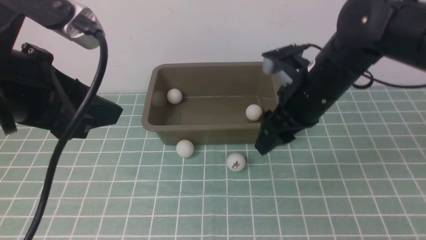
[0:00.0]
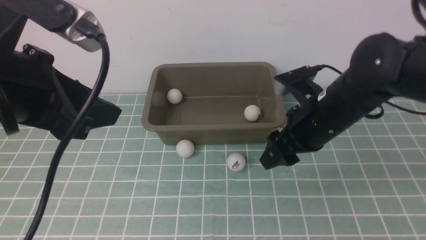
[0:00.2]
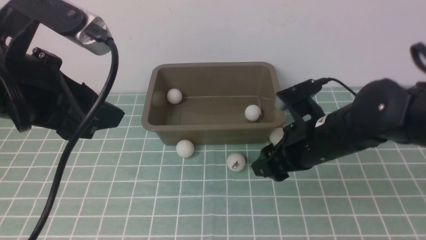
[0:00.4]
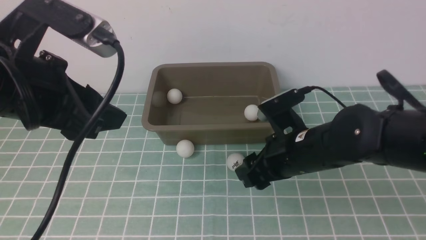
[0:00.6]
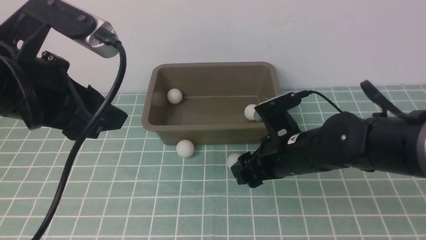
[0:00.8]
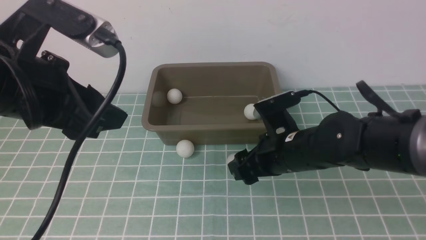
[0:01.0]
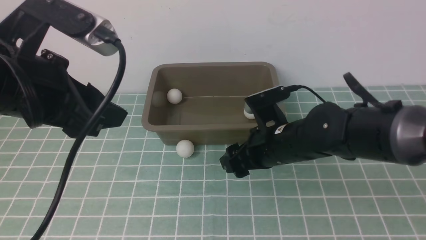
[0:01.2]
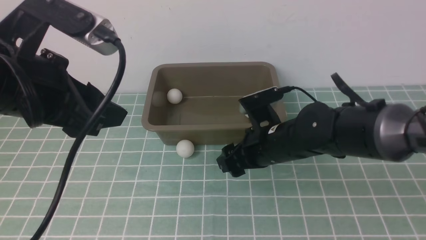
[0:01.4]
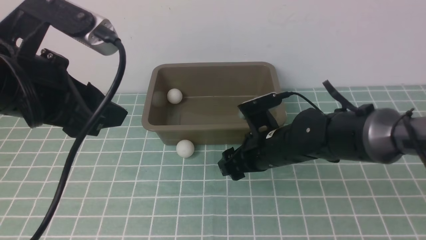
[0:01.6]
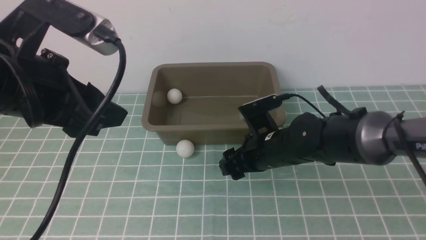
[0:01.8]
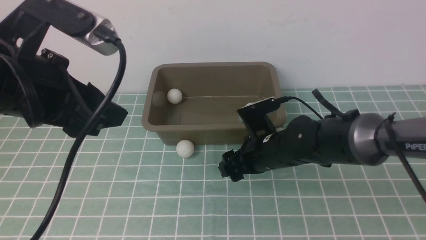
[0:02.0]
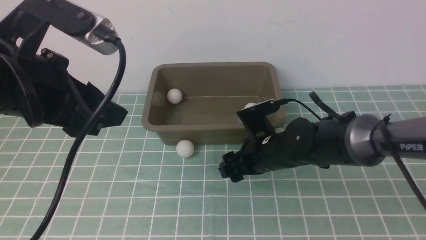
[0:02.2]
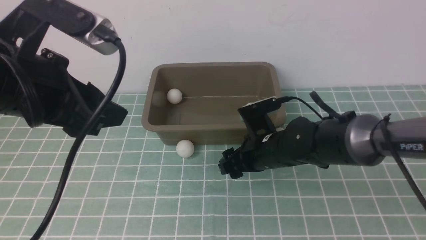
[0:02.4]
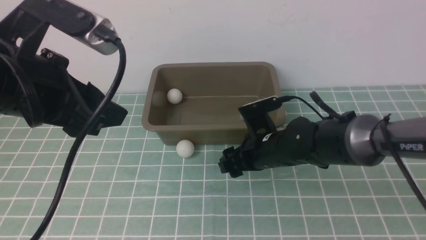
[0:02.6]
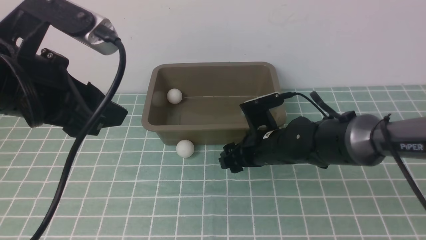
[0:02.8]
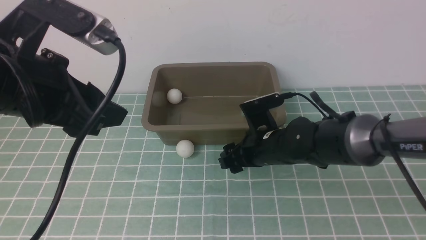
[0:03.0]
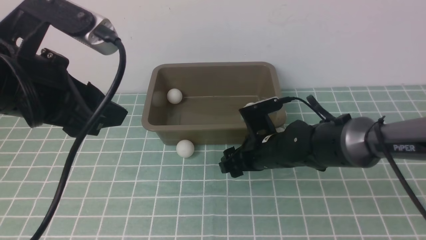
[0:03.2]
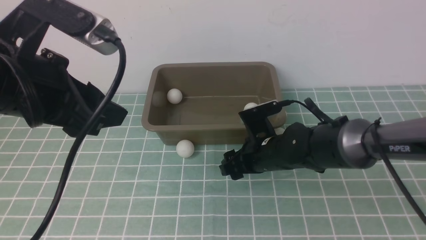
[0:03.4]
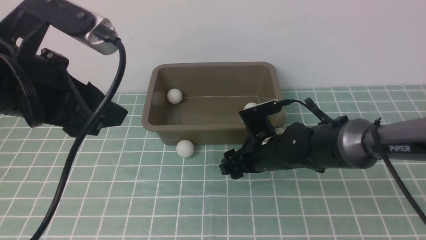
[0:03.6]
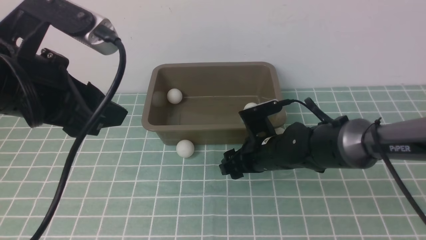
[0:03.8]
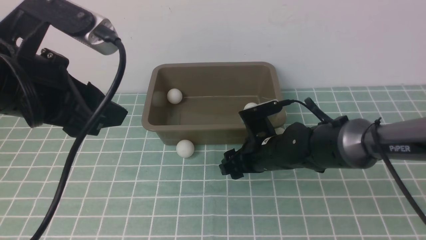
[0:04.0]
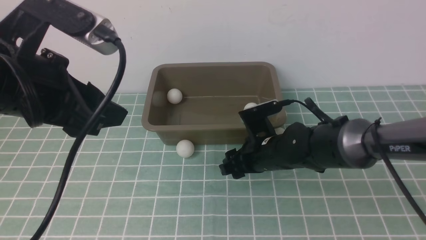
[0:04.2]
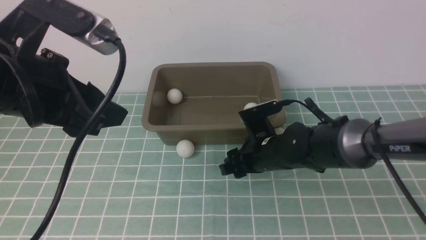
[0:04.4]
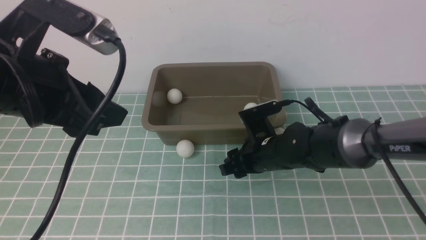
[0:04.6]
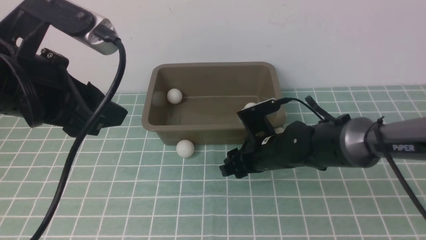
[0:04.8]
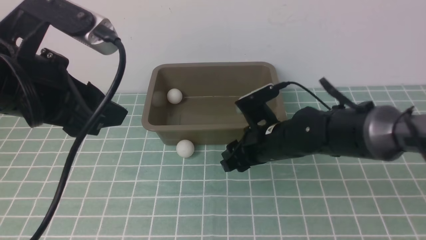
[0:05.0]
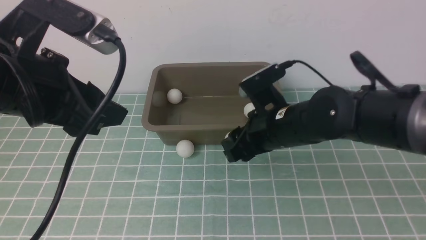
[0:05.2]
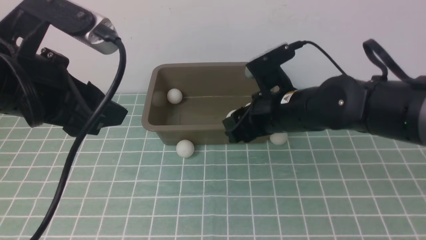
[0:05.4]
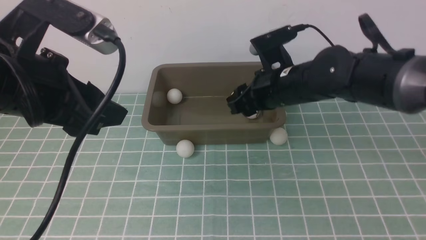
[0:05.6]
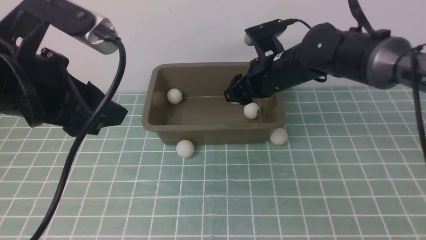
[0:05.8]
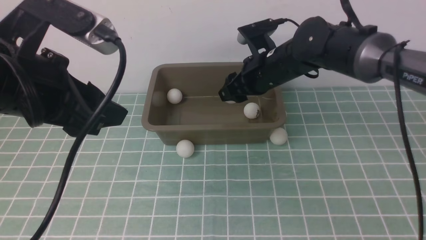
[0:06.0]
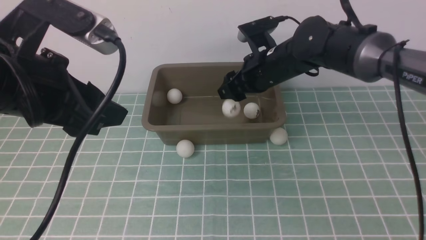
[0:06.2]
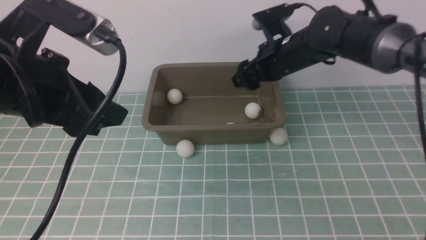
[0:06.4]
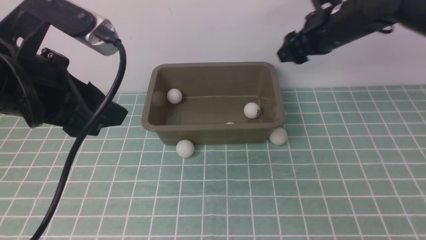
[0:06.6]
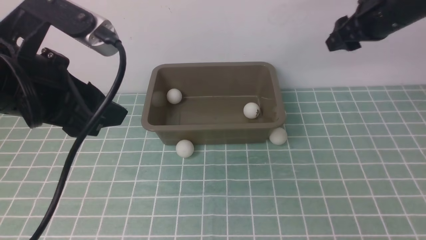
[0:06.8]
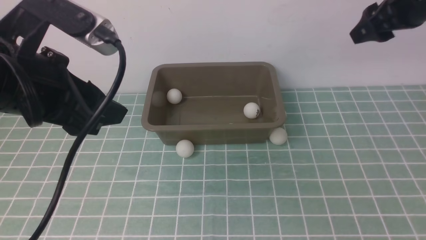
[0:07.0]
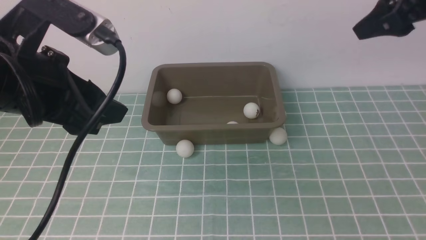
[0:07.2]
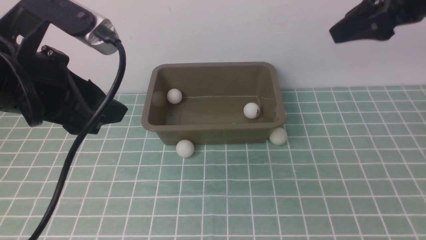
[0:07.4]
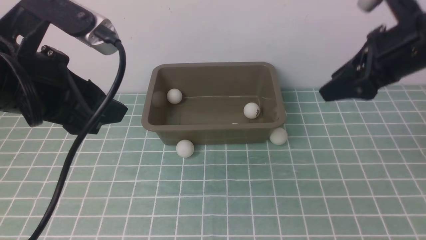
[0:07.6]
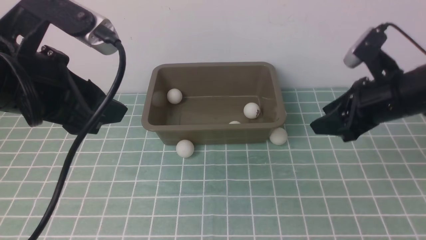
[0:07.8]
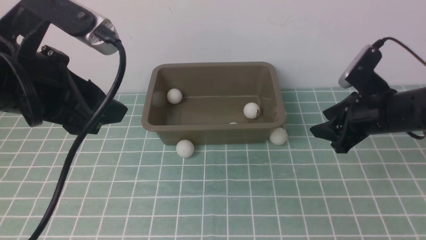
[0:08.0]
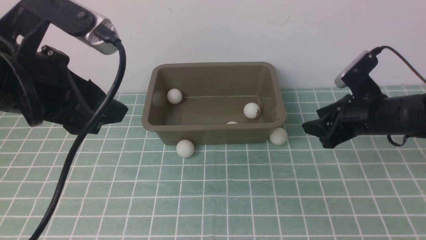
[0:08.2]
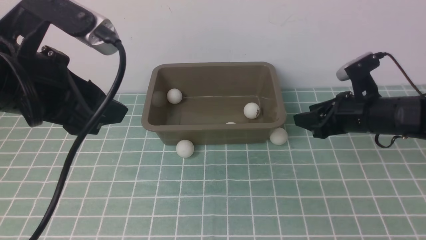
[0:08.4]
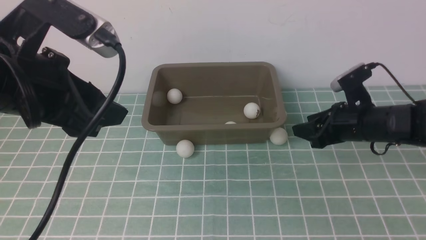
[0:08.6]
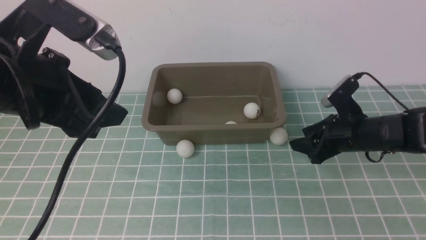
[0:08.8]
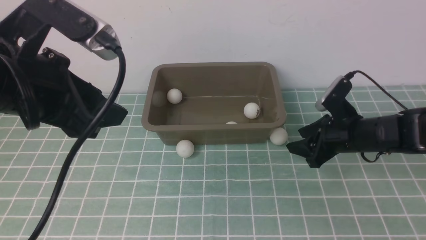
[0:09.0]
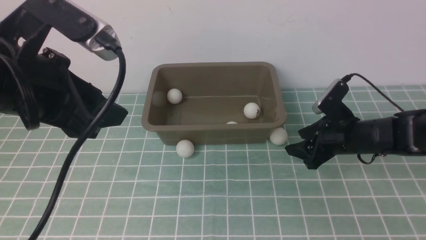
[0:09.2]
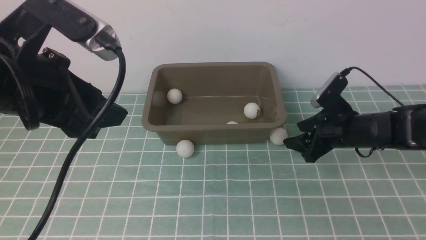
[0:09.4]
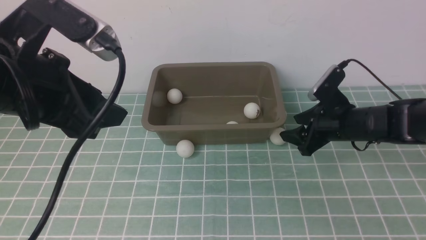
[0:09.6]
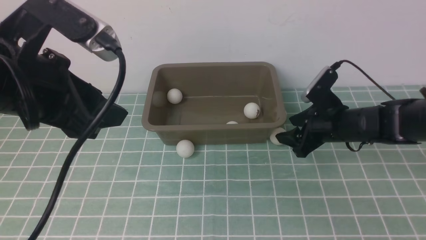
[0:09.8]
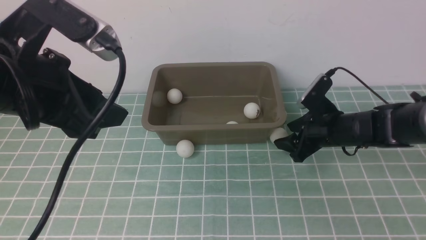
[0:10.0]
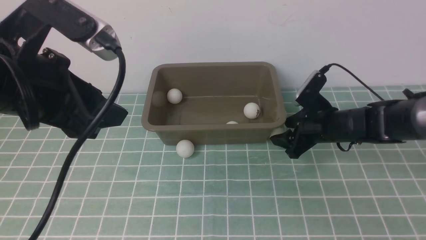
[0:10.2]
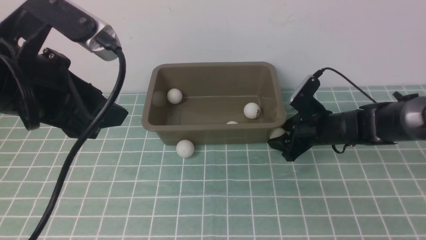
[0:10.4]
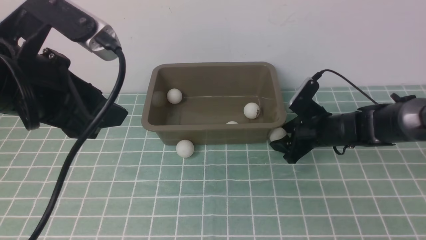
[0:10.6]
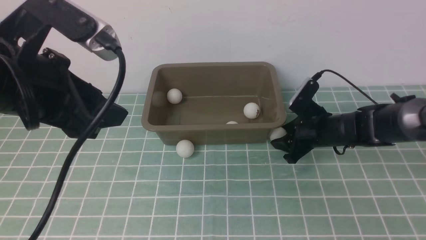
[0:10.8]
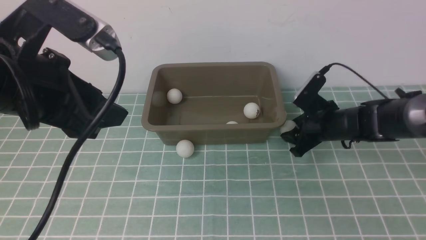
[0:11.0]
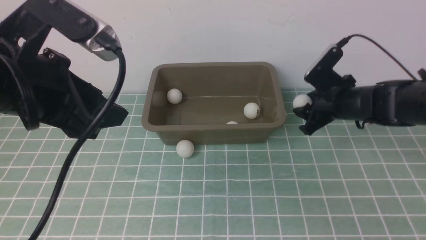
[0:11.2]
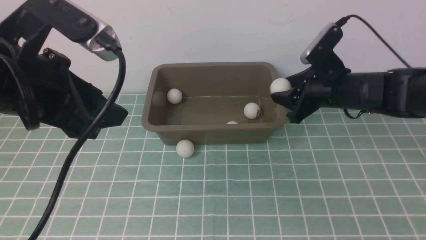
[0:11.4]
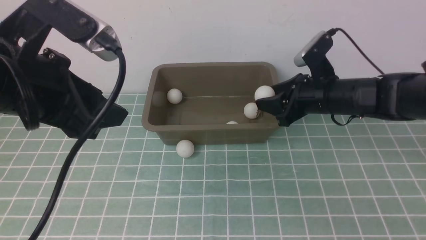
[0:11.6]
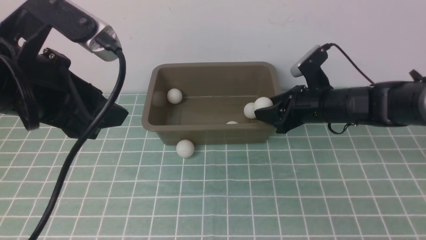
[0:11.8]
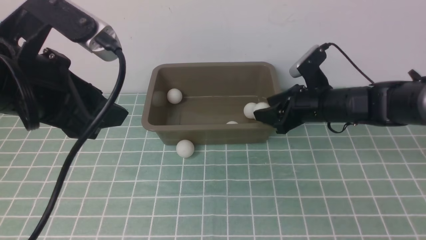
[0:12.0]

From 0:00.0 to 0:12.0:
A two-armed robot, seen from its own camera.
Step, from 0:00.0 to 0:05.0: use the right arm to clamp the table tennis ball closest to it.
Step, from 0:05.2 to 0:06.4: use the right arm to put the table tennis ball into the box.
Step, from 0:06.6 to 0:11.2: use the right arm to clamp the table tennis ball closest to it.
From 0:00.0 to 0:01.6: The right gripper is displaced downward by approximately 5 cm.
From 0:01.6 to 0:03.0: Neither gripper changes place.
From 0:03.0 to 0:04.4: The right gripper closes.
From 0:04.4 to 0:06.0: The right gripper is displaced upward and forward by about 15 cm.
From 0:06.0 to 0:07.6: The right gripper travels to the right, upward and backward by some 20 cm.
From 0:07.6 to 0:09.0: The right gripper moves downward, roughly 20 cm.
From 0:09.0 to 0:10.4: The right gripper changes place by about 5 cm.
From 0:10.4 to 0:12.0: The right gripper heads upward, covering about 5 cm, and closes, then reopens.

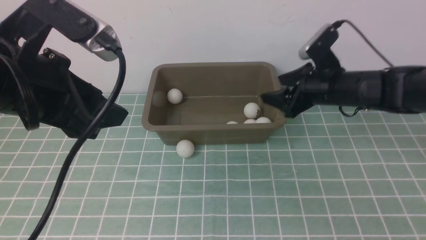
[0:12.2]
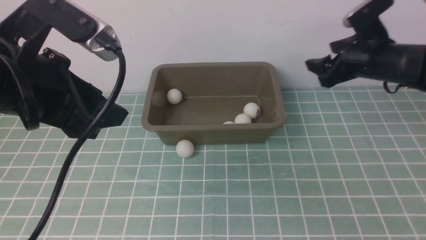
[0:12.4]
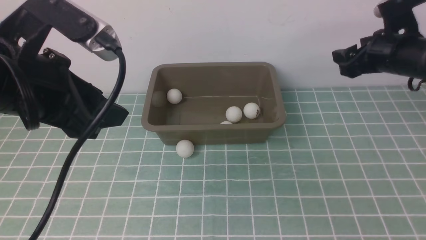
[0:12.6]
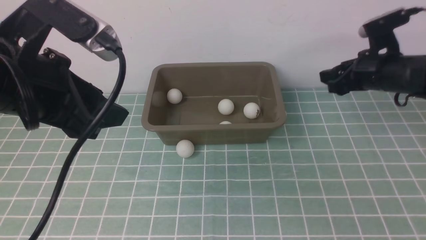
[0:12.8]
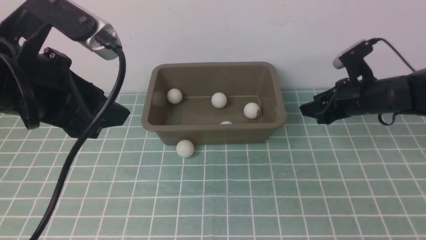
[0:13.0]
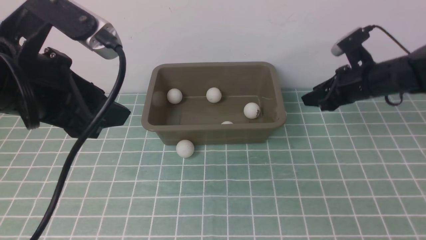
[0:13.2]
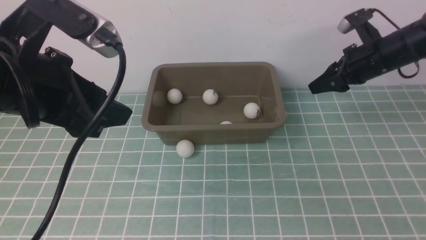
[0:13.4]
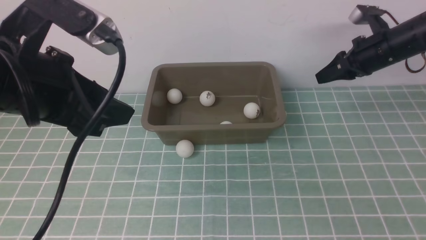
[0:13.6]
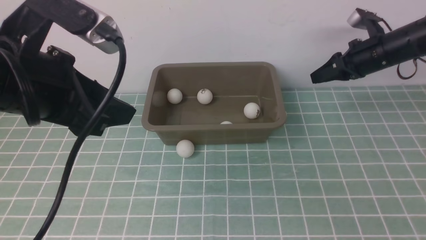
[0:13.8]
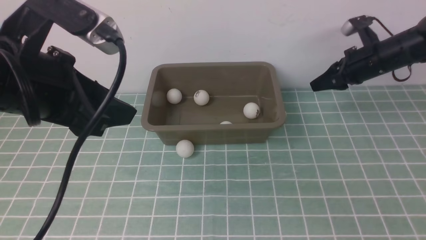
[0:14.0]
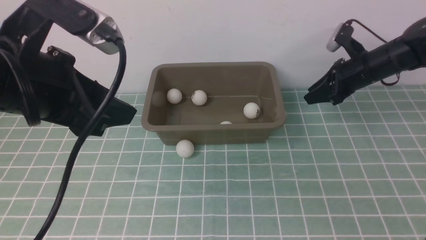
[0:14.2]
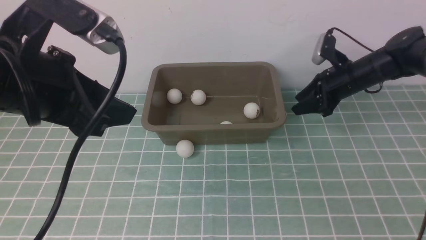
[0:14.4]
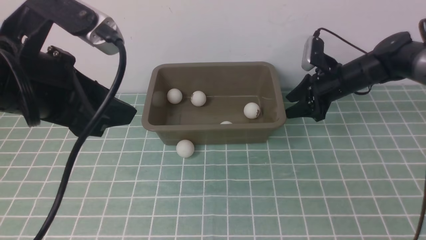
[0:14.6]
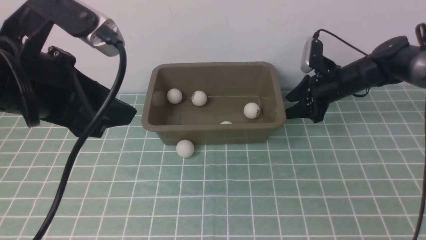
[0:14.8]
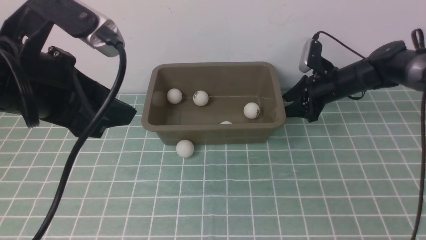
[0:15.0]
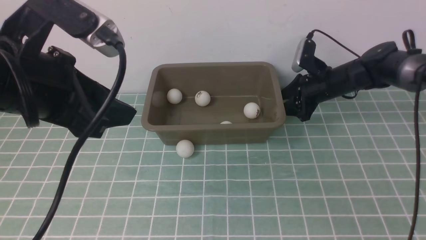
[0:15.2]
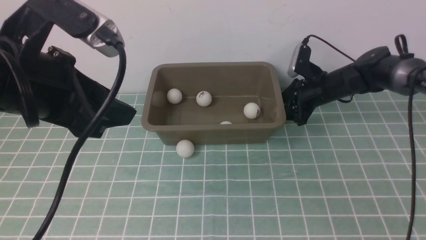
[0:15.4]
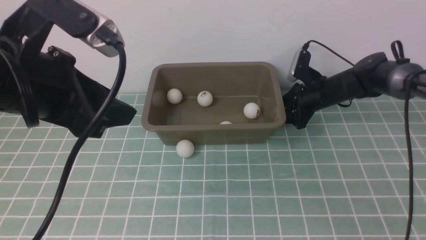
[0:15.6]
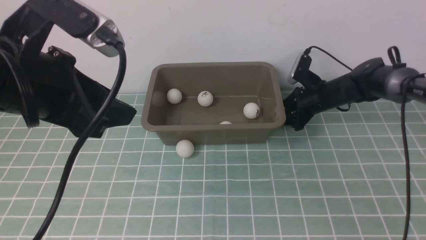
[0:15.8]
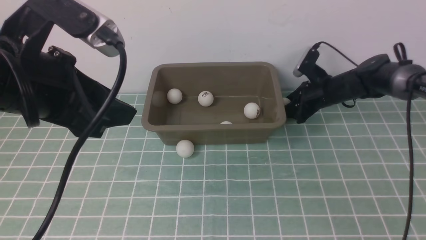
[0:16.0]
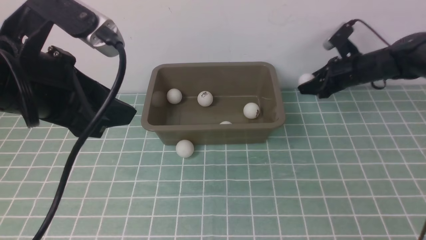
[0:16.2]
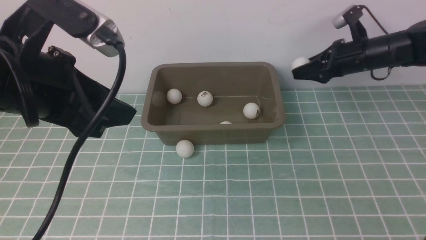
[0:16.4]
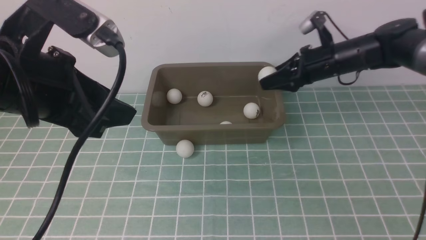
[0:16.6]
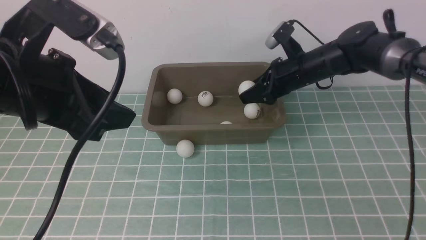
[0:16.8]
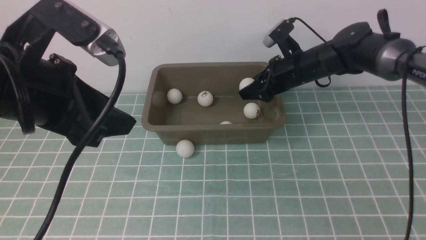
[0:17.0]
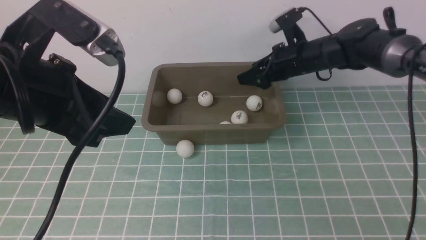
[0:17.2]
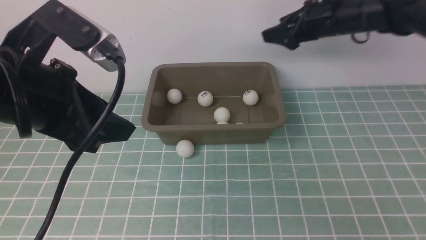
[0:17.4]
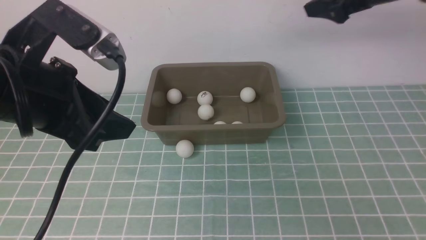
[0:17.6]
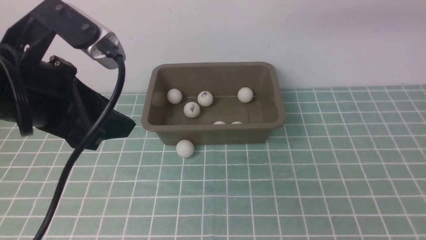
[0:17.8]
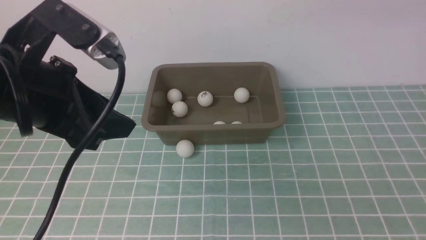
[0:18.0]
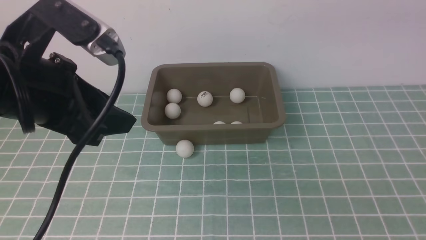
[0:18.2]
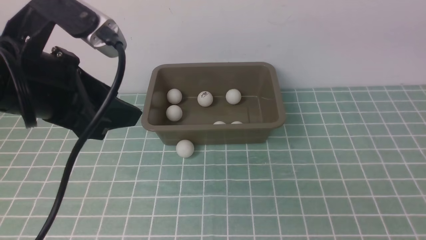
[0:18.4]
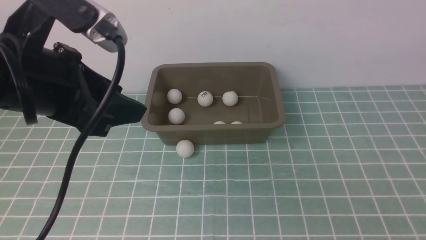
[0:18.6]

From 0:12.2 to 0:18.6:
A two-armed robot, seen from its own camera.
Step, from 0:12.4 to 0:16.2: use the right arm to clamp the table tennis ball closest to it.
Step, from 0:16.4 to 0:17.2: use the right arm to put the table tennis ball into the box.
From 0:12.2 to 0:13.8: The right gripper shifts some 10 cm to the right and forward, and closes up.
From 0:13.8 to 0:15.4: The right gripper travels downward and to the left by roughly 10 cm.
From 0:15.4 to 0:17.0: The right gripper travels upward and to the left by about 10 cm.
From 0:17.0 to 0:18.6: The right gripper travels backward, upward and to the right by about 40 cm, and opens, then closes again.
